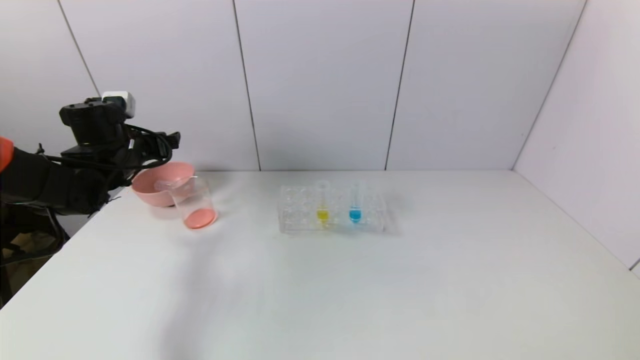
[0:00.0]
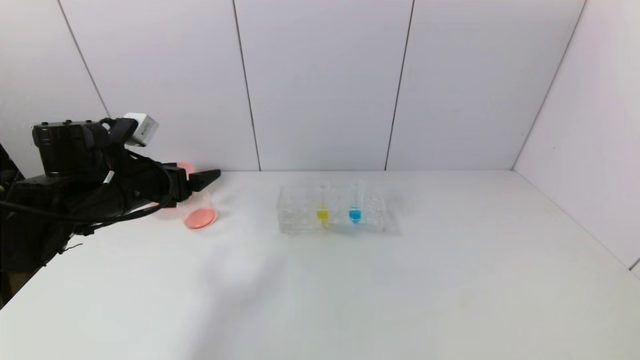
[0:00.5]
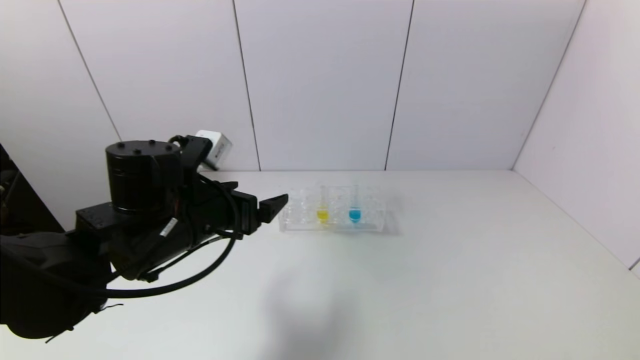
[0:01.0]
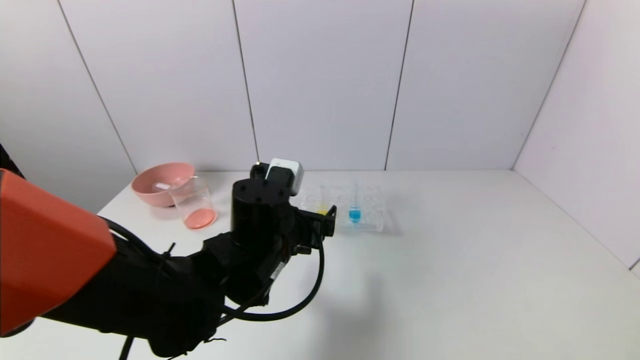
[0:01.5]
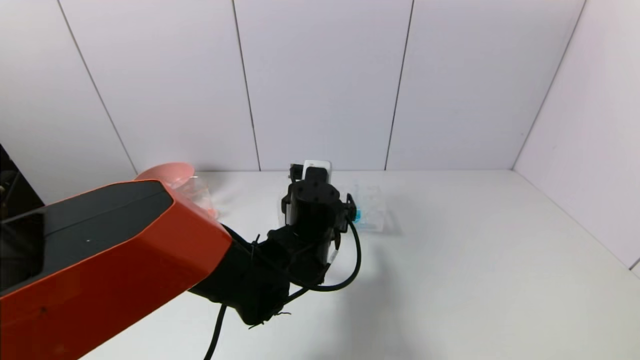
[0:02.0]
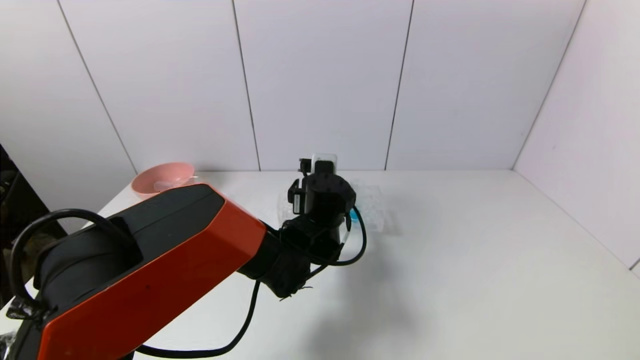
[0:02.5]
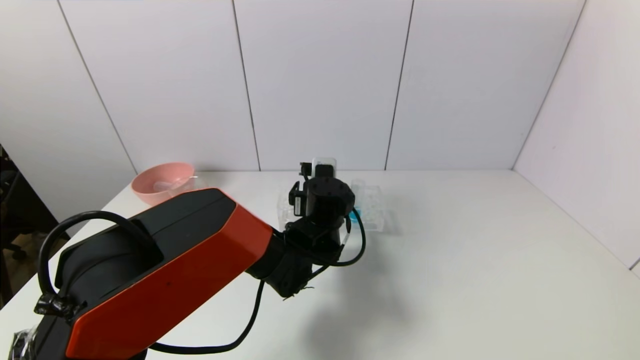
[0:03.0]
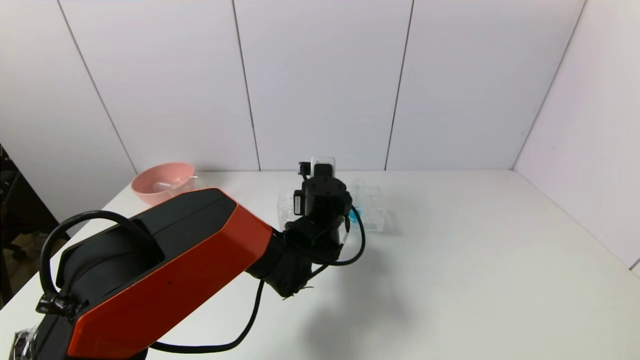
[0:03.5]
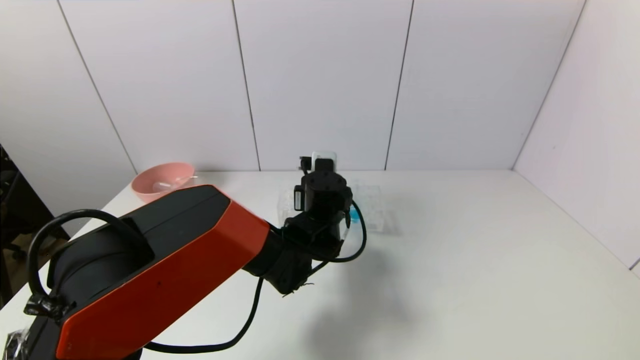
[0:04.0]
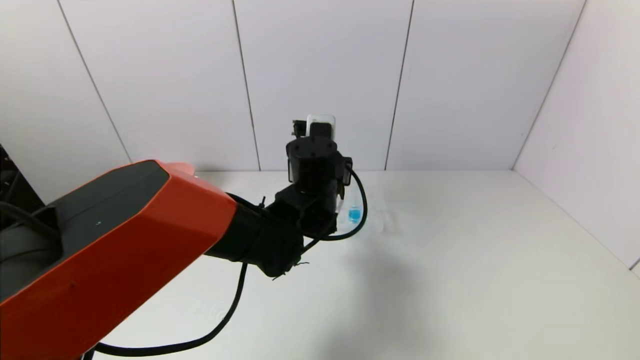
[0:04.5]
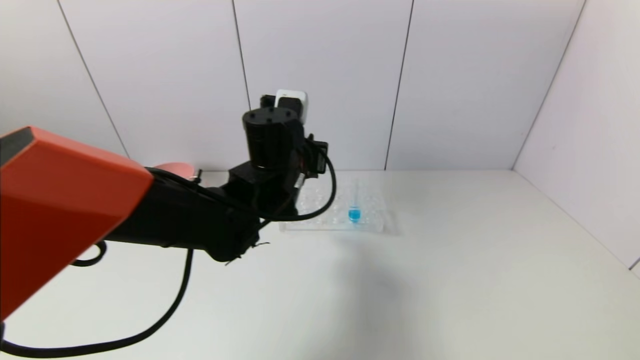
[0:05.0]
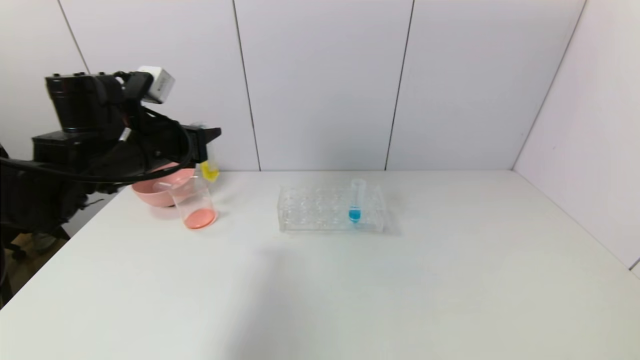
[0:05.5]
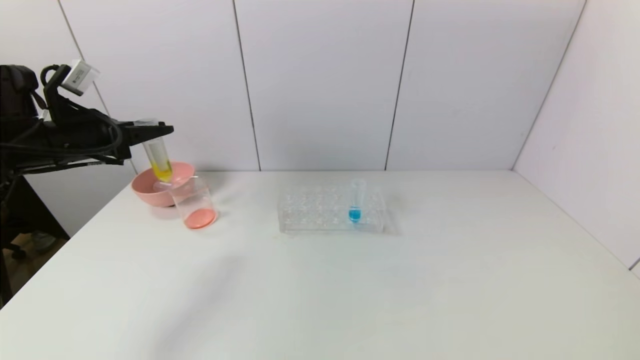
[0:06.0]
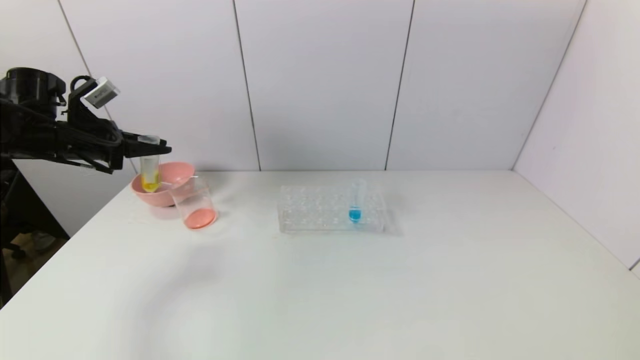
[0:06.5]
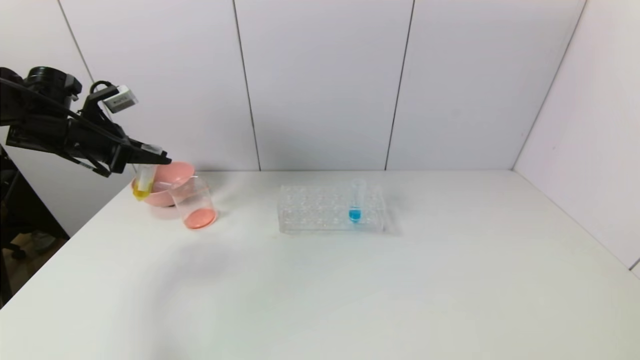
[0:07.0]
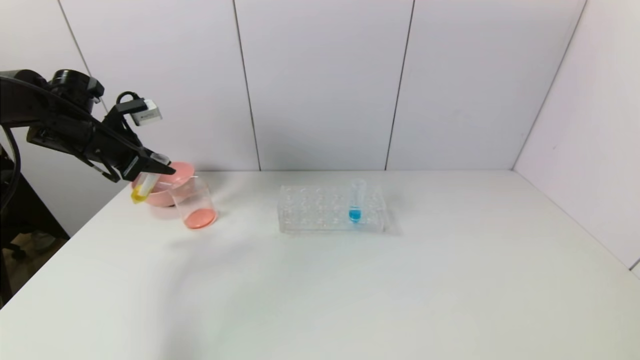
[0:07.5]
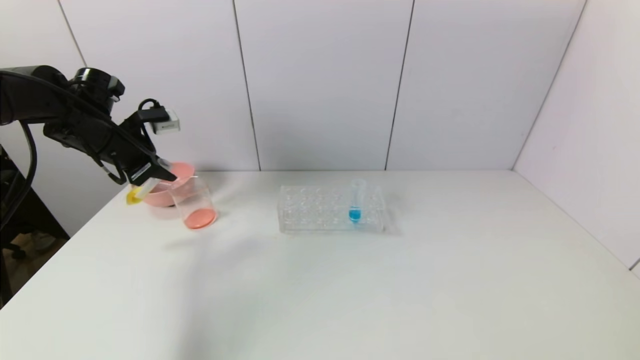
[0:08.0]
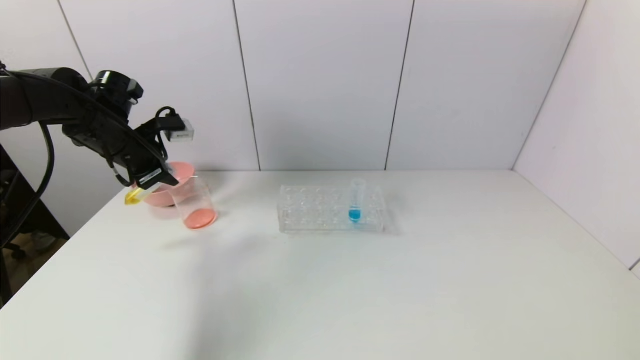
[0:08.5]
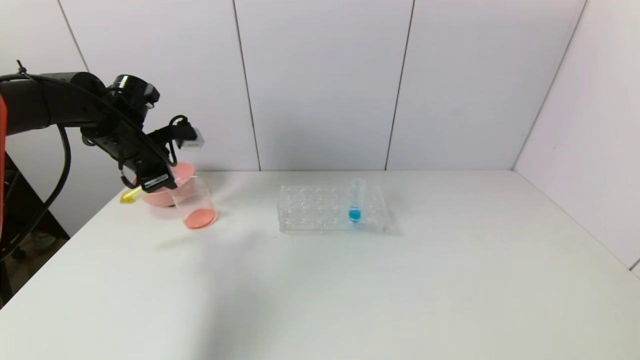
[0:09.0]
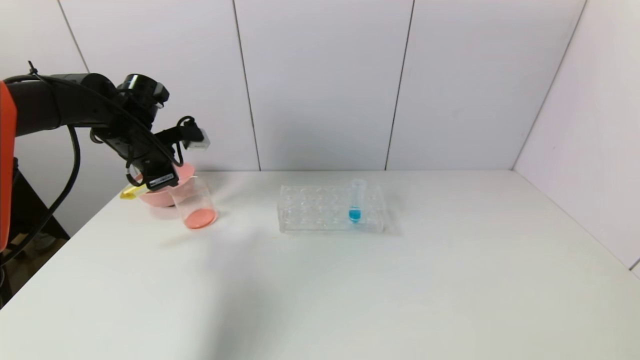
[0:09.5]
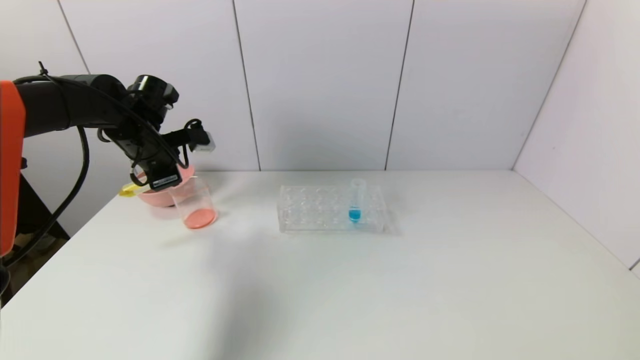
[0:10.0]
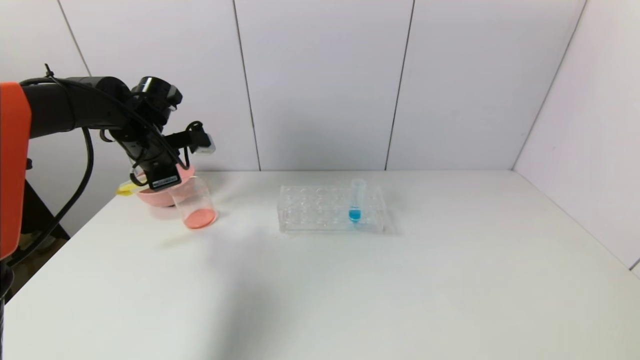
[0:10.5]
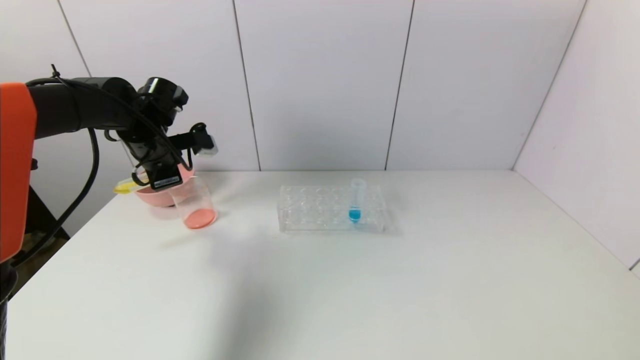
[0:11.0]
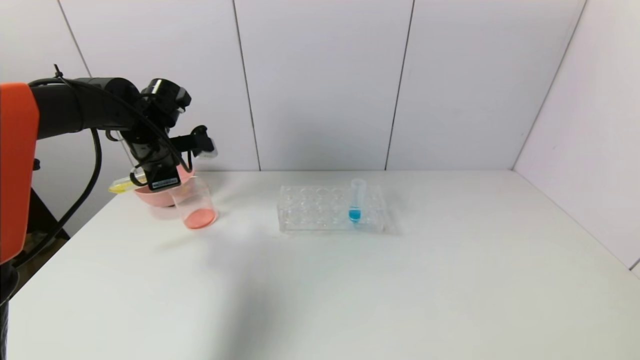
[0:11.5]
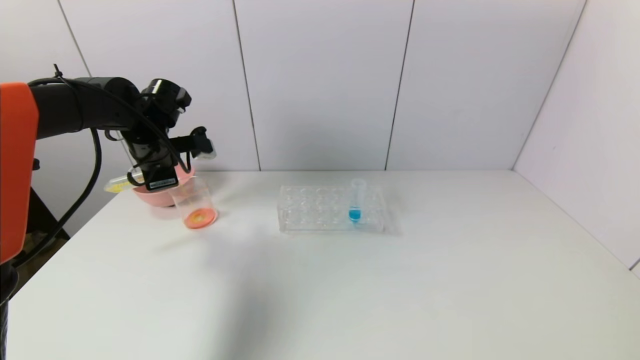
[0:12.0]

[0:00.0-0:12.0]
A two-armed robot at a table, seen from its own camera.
Task of the whole recording: pick up the test tube with yellow pigment and the test tube with red pigment by grippers and pour them into the beaker.
Step, 0:00.0 to 0:03.5: Grasp the yellow reagent with the left gripper.
0:00.0 to 0:02.0: The left gripper shifts some 30 cm to the right.
0:02.0 to 0:04.0: The left gripper heads forward, covering about 5 cm, and closes up.
0:04.0 to 0:06.0: The left gripper shifts some 40 cm to the left and upward.
0:06.0 to 0:08.0: The left gripper shifts some 5 cm forward.
0:08.0 to 0:10.0: The left gripper moves to the right, roughly 5 cm.
0:10.0 to 0:12.0: The grippers make only small movements.

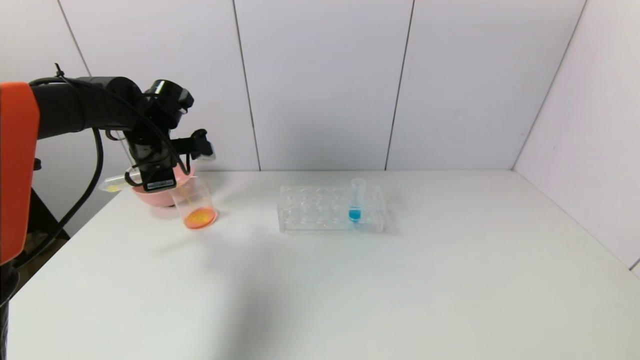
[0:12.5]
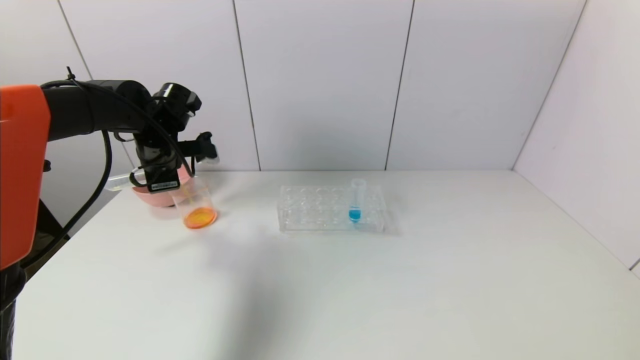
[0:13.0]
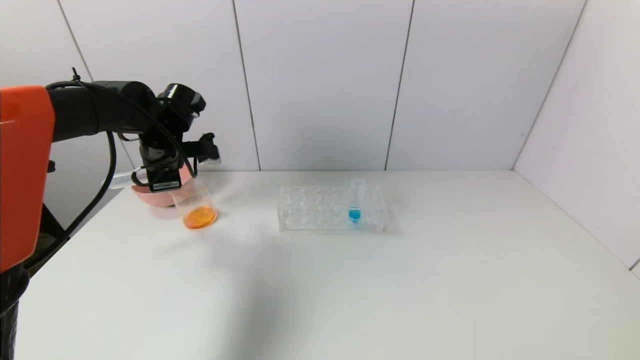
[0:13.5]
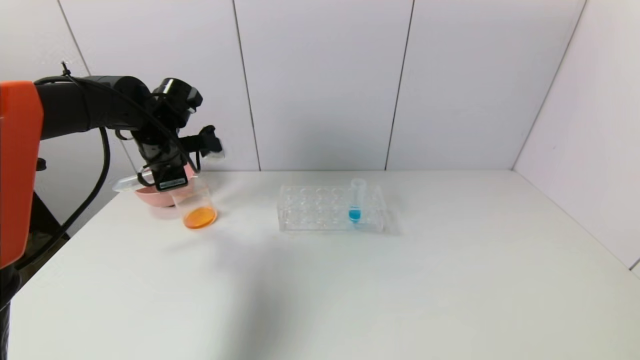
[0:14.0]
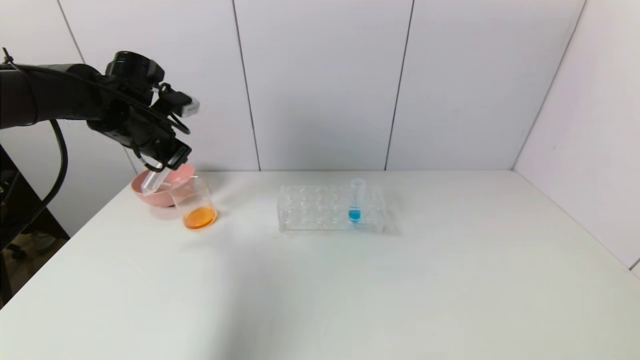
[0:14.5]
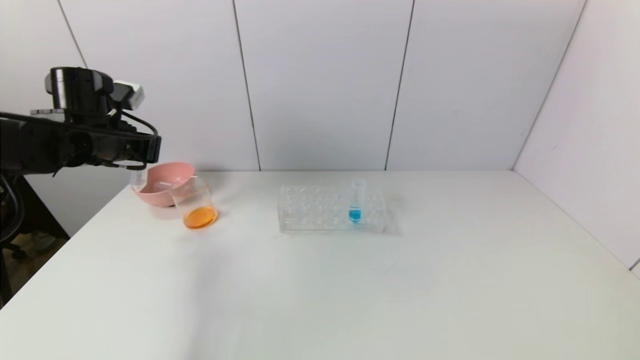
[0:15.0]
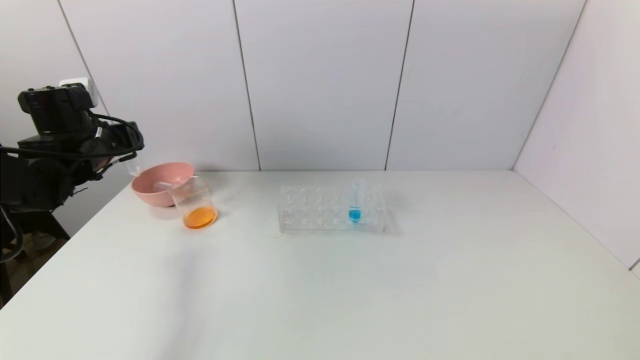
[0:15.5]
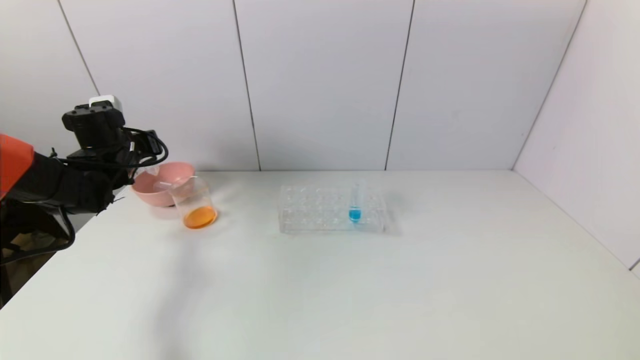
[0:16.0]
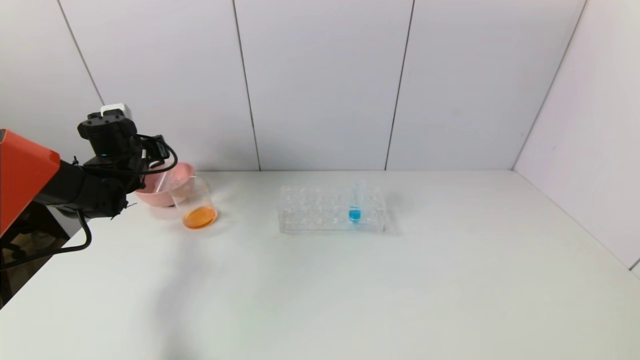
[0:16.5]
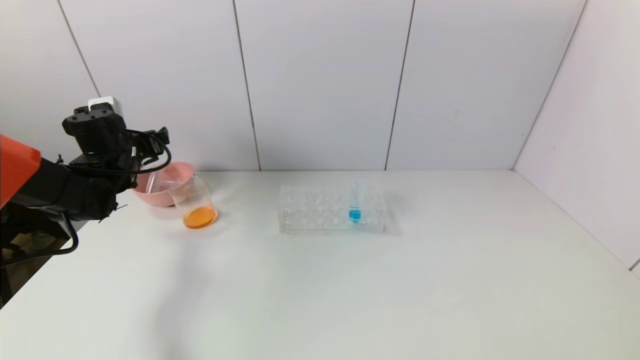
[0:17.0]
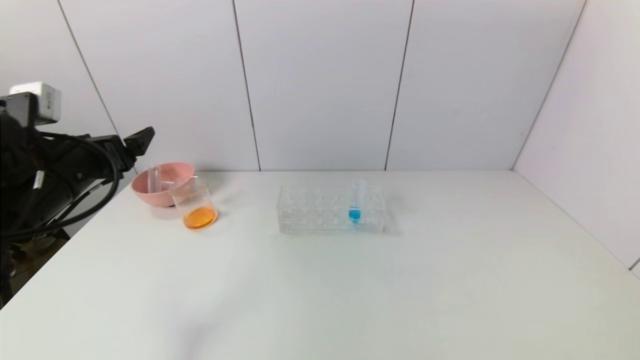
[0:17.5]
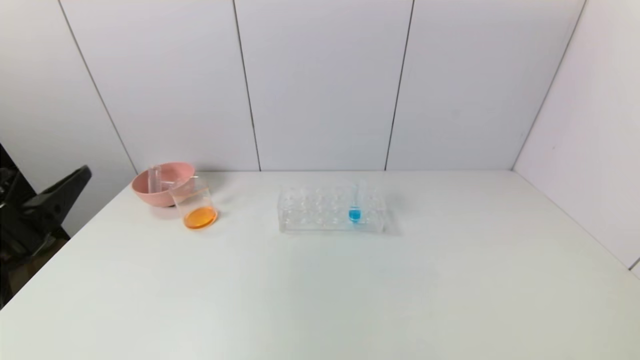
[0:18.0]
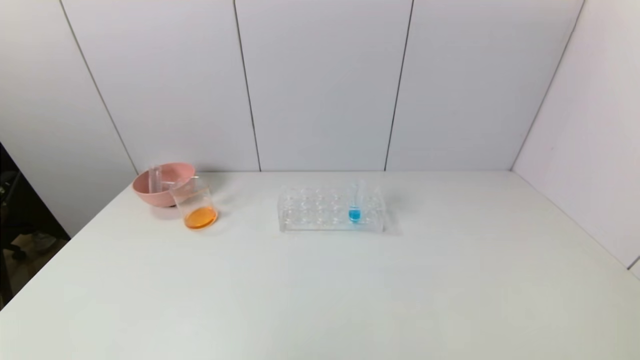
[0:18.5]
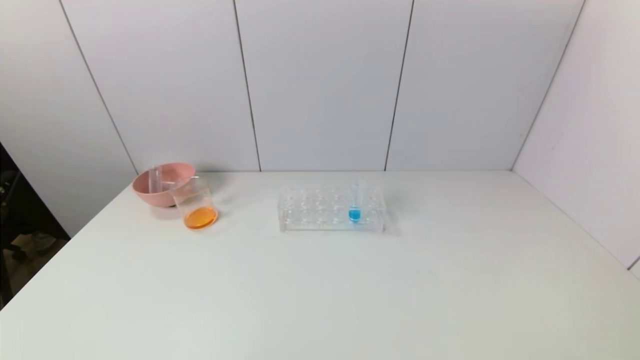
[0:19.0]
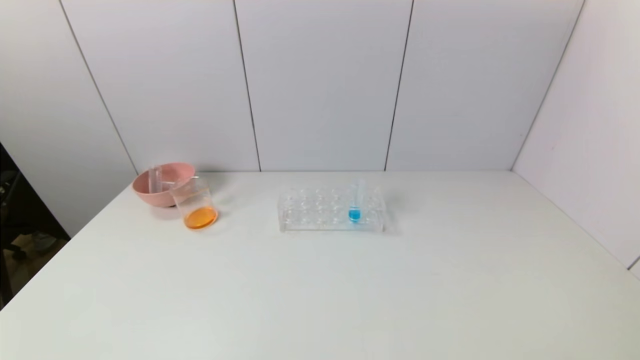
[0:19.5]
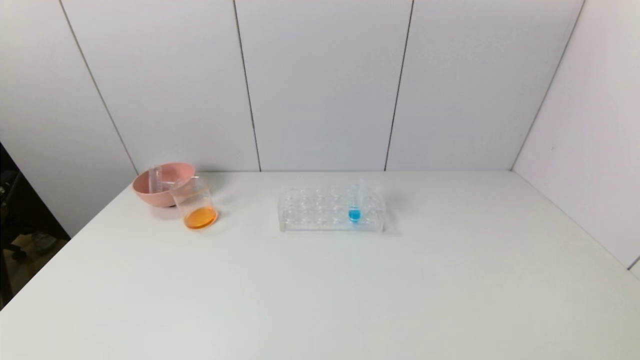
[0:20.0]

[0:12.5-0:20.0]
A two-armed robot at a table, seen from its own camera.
Task of the whole recording: pick up the test tube with yellow pigment and the test tube with red pigment by grippers and pour them into the beaker.
Step, 0:14.0 to 0:16.5: Place the test tube into the pink bowl with the left gripper.
0:14.5 to 0:16.5: The left gripper is displaced downward and to the left by some 10 cm, and opens.
0:16.5 to 0:18.0: The left gripper travels backward by about 30 cm, and opens its fingers.
0:18.0 to 0:20.0: The left gripper goes approximately 20 cm downward and backward.
